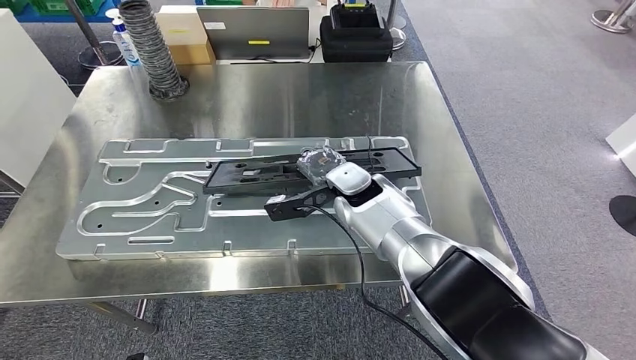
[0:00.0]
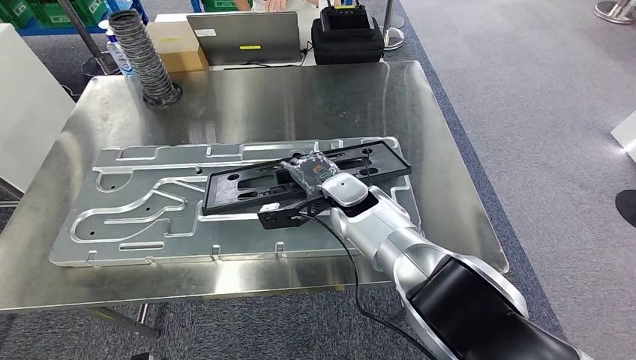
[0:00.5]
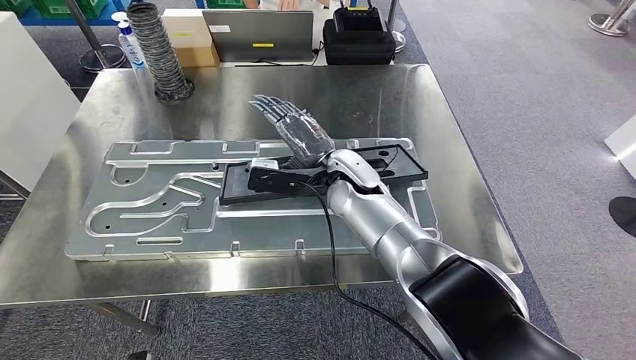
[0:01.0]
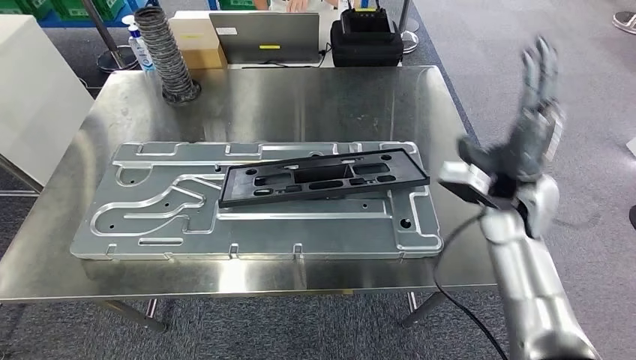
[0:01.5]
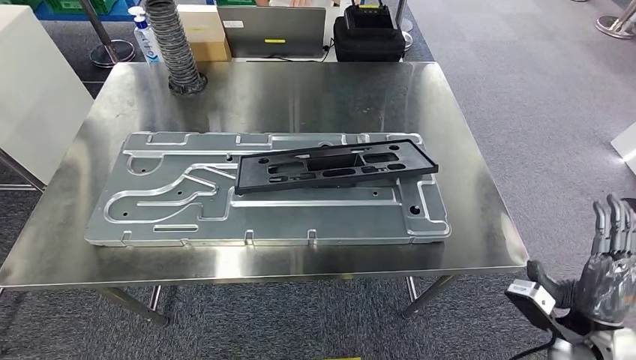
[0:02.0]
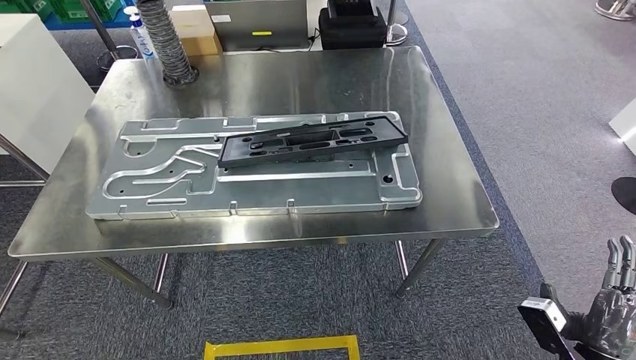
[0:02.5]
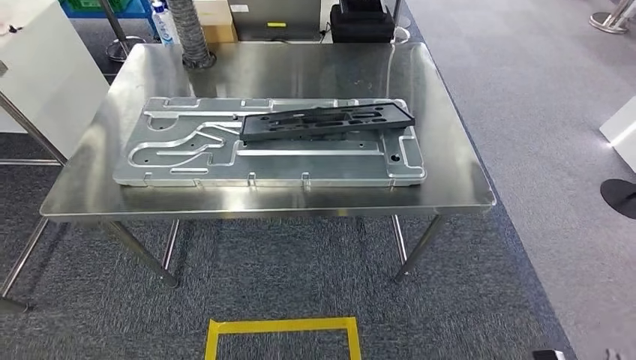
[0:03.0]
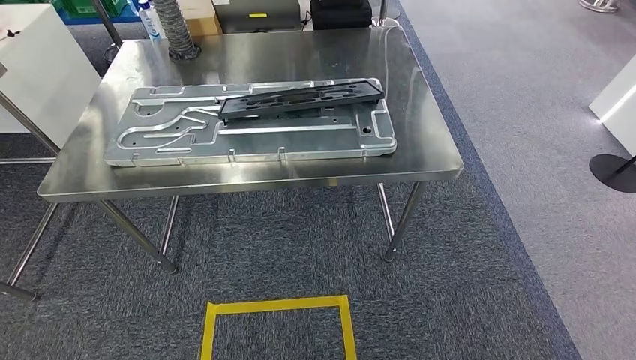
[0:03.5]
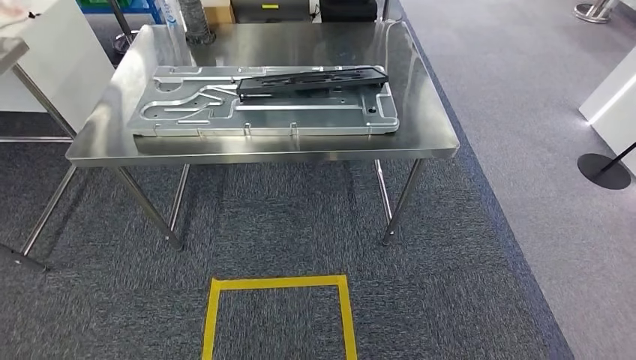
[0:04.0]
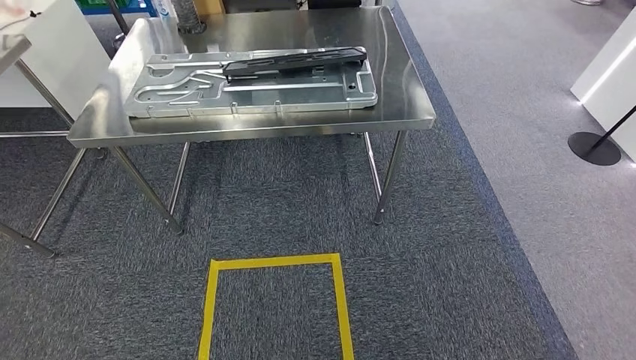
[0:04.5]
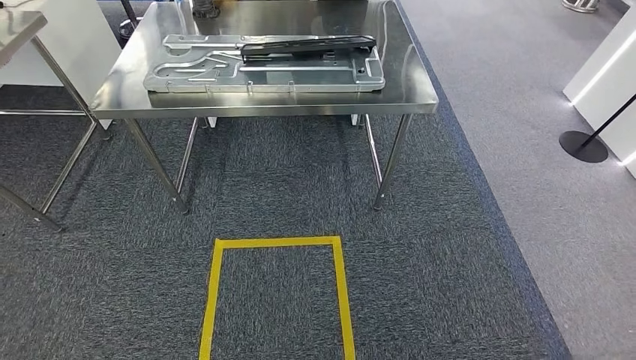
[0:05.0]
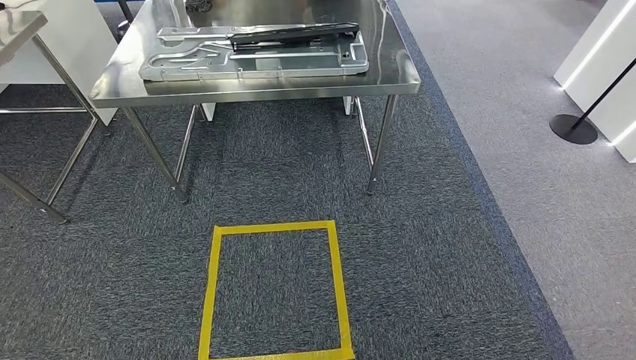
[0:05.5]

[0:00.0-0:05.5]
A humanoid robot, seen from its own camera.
Step, 0:03.0 to 0:05.5: Return to the initial position at the shelf.
